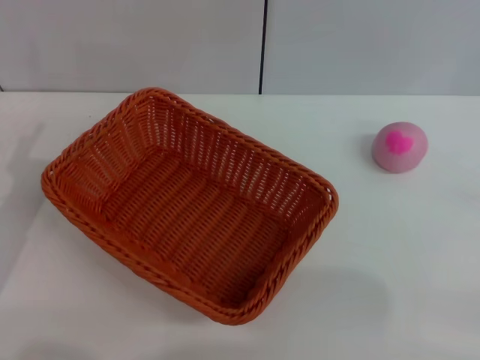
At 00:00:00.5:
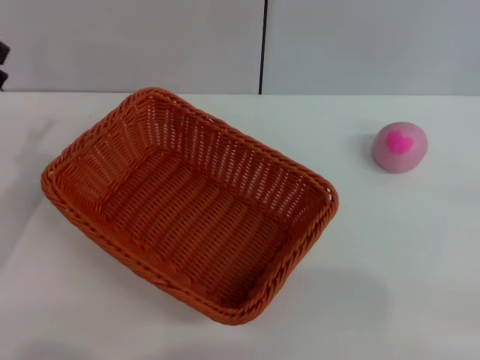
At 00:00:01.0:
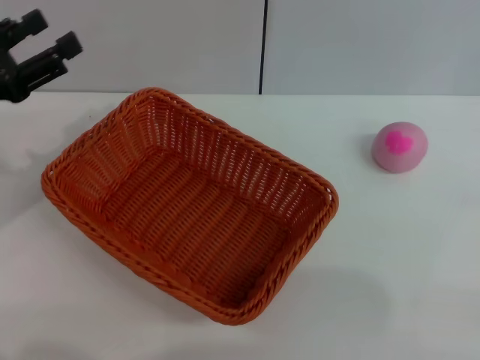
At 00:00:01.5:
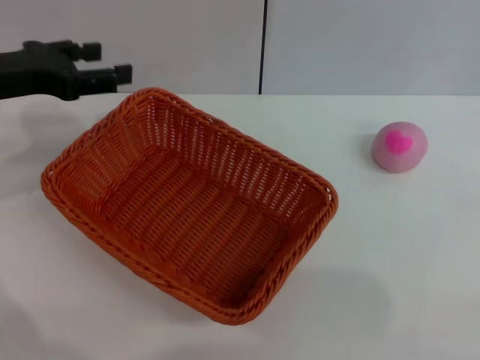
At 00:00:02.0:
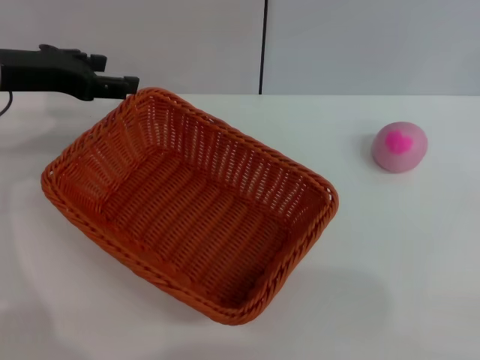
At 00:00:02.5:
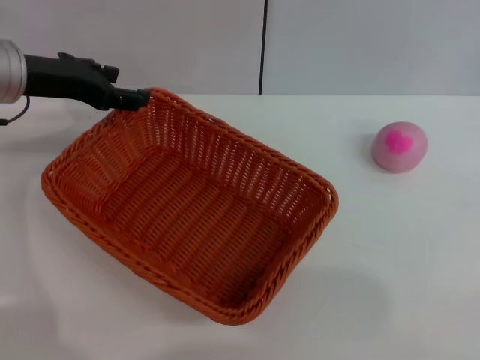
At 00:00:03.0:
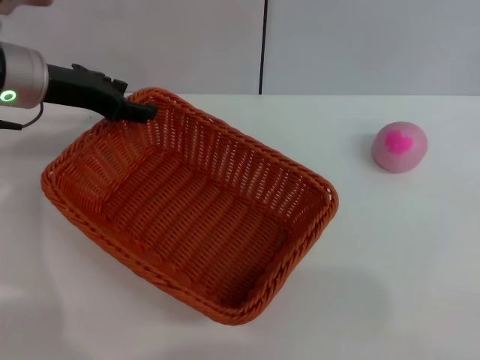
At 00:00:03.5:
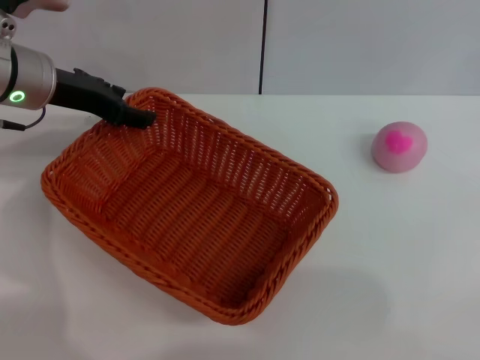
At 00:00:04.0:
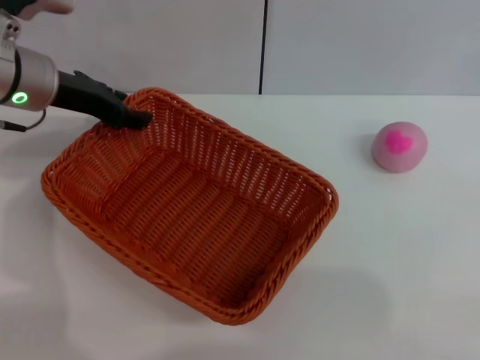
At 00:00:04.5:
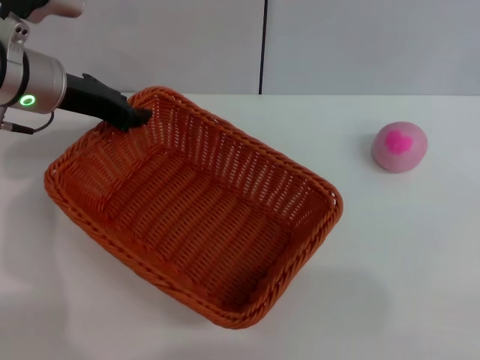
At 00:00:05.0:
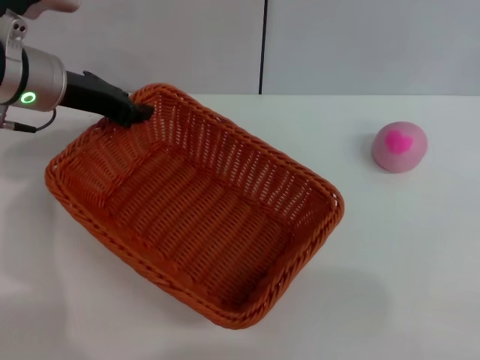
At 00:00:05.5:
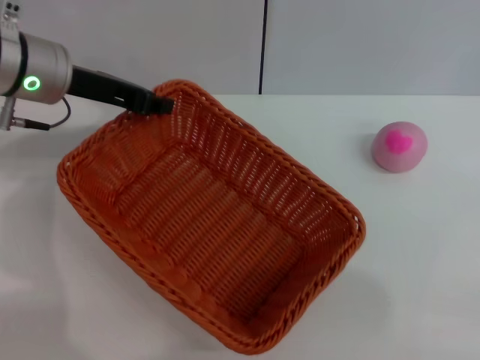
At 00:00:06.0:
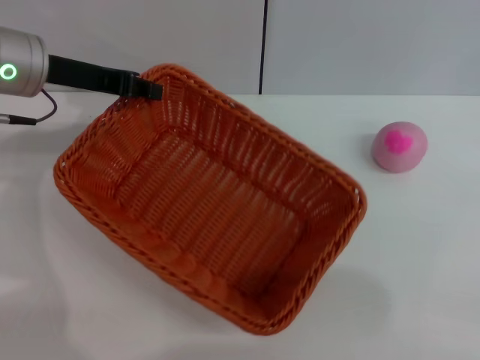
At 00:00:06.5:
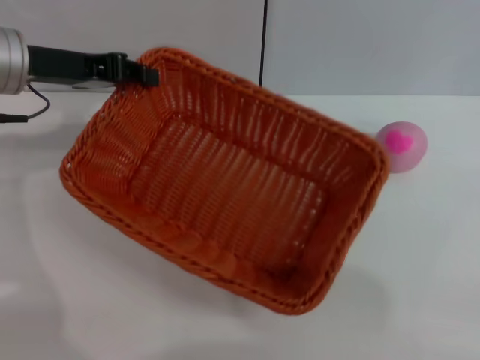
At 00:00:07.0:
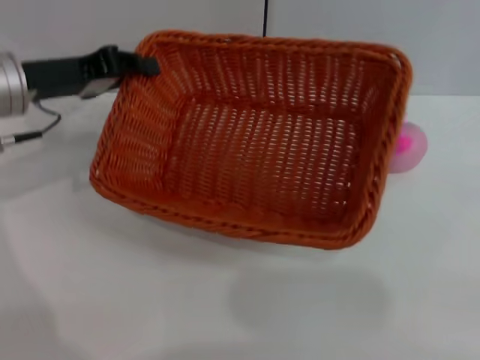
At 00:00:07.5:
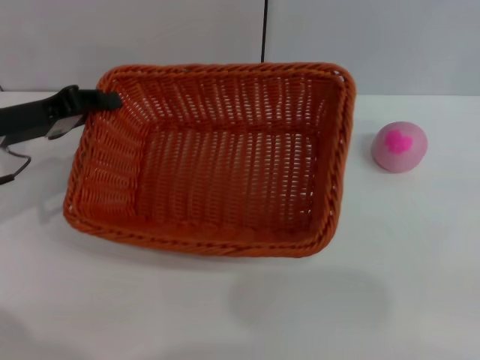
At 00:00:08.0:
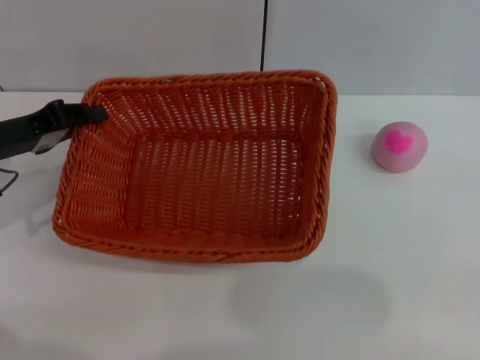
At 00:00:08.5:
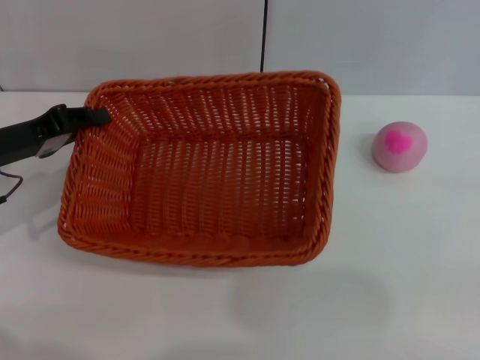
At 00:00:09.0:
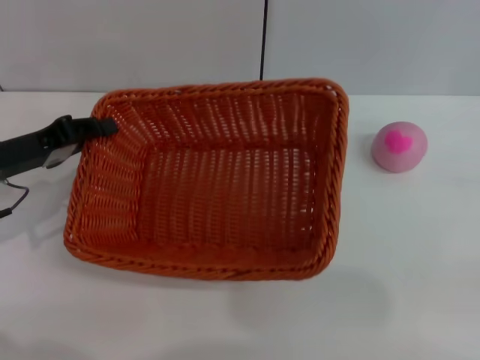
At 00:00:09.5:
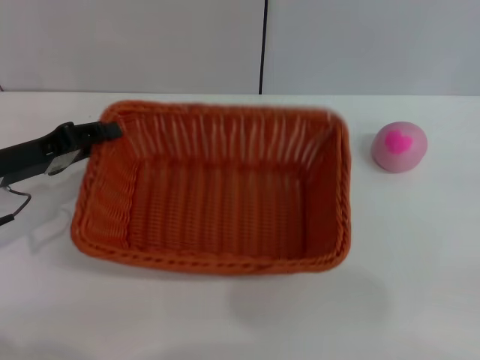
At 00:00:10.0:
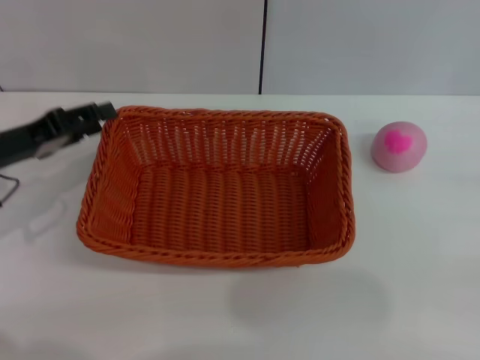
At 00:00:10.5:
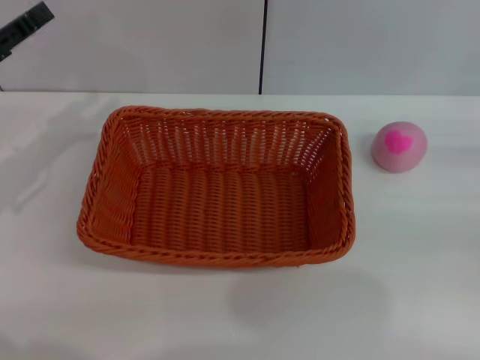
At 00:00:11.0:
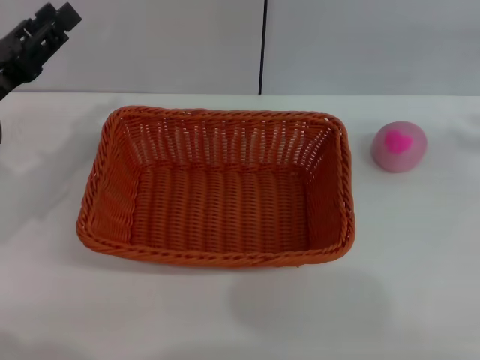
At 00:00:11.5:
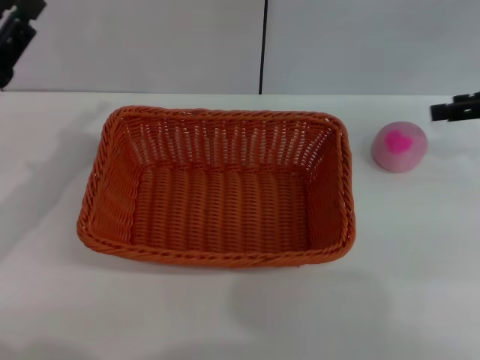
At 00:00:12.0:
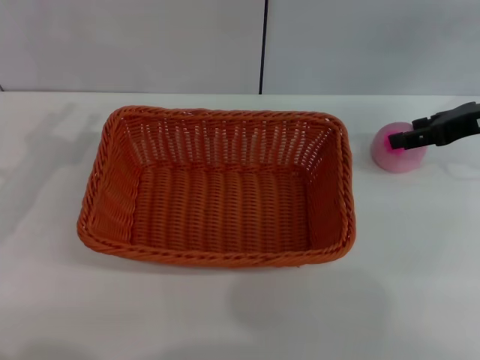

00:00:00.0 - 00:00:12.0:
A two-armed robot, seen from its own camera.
Step, 00:00:00.0 - 00:00:06.0: Pick up the light basket with the left gripper.
Step, 00:00:06.5 - 00:00:10.0: Place the light basket in the center of view with the right gripper.
00:00:00.0 - 00:00:02.0: The left gripper goes about 20 cm forward and upward.
00:00:02.0 - 00:00:04.0: The left gripper moves about 5 cm.
00:00:04.0 - 00:00:06.0: The left gripper closes.
00:00:06.0 - 00:00:08.0: The left gripper heads downward, to the left and backward, covering roughly 10 cm.
00:00:08.0 - 00:00:10.0: The left gripper opens its fingers.
00:00:10.0 - 00:00:12.0: The right gripper moves forward, to the left and upward, approximately 20 cm, while the left gripper shifts by approximately 5 cm.

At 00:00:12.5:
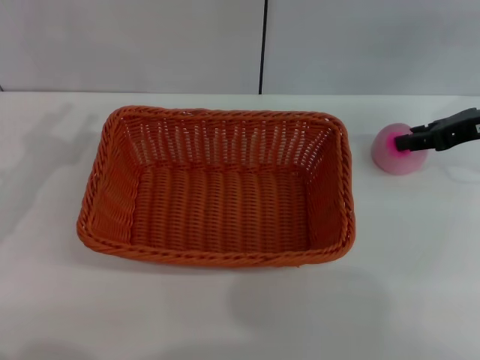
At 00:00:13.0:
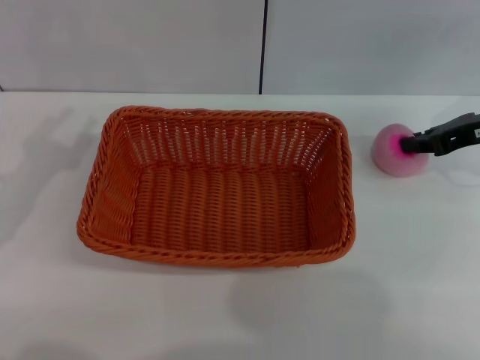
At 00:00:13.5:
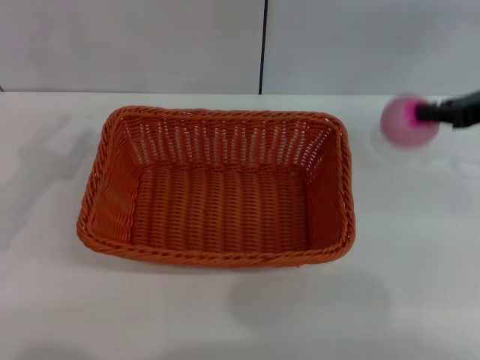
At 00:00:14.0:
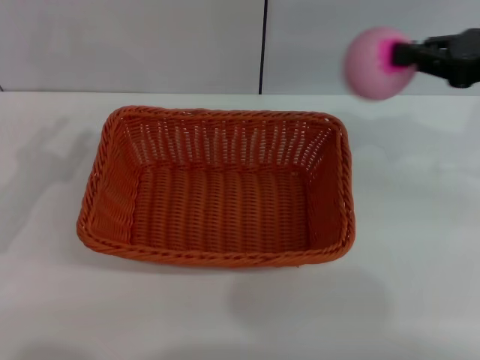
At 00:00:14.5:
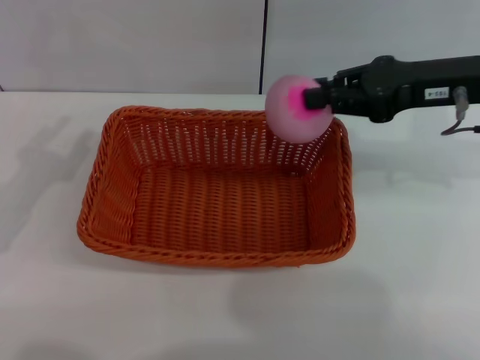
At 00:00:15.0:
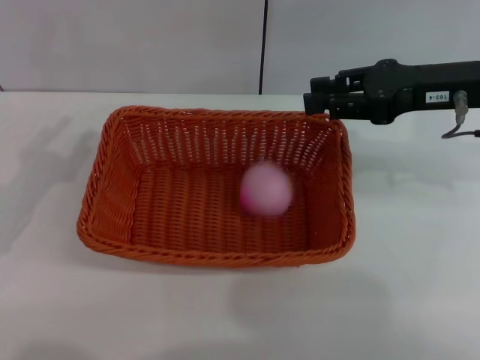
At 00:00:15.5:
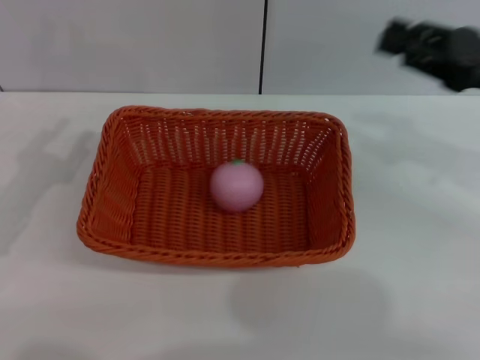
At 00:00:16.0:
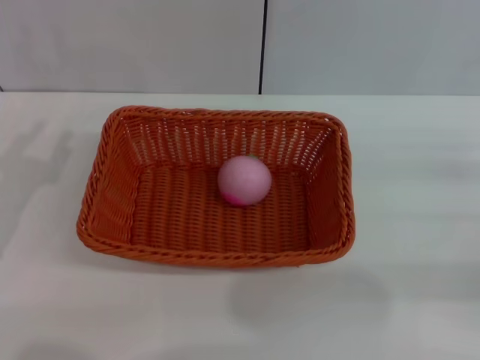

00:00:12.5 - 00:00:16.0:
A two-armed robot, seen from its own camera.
Step, 00:00:14.5 - 00:00:15.0: Place the peach into the basket with the left gripper.
00:00:12.5 - 00:00:14.5: The right gripper goes some 10 cm to the left and upward, and closes up.
00:00:14.5 - 00:00:16.0: The right gripper heads to the right, backward and downward, covering roughly 20 cm, and opens.

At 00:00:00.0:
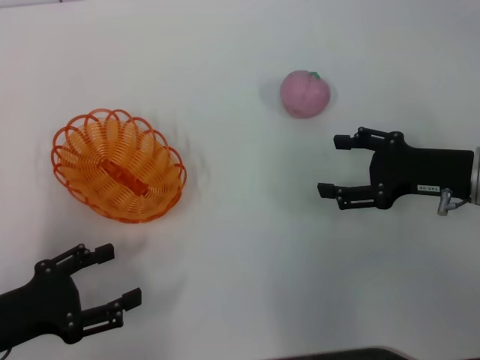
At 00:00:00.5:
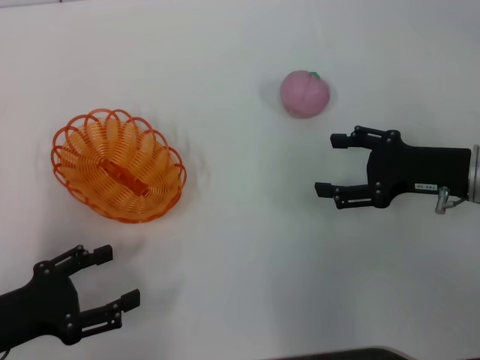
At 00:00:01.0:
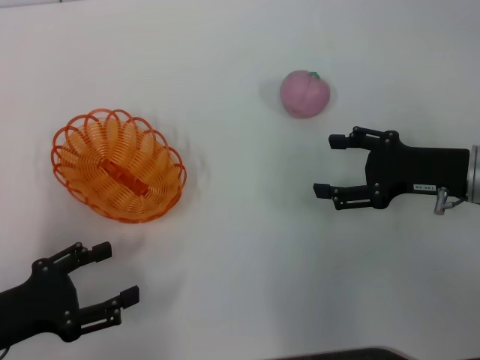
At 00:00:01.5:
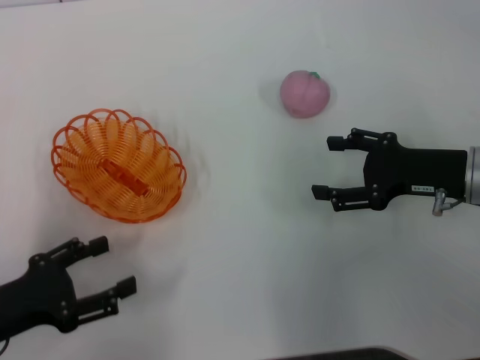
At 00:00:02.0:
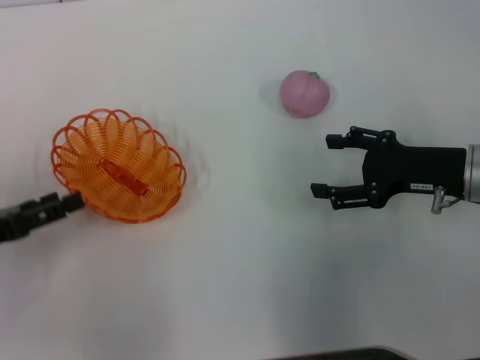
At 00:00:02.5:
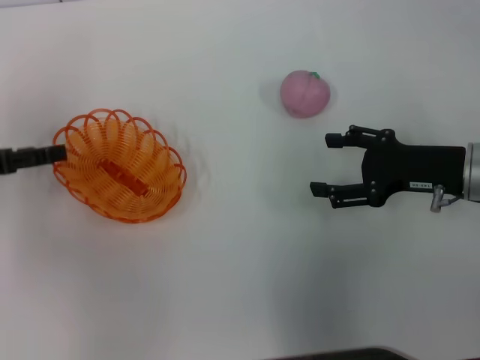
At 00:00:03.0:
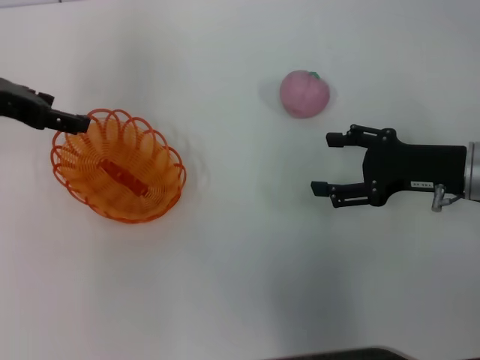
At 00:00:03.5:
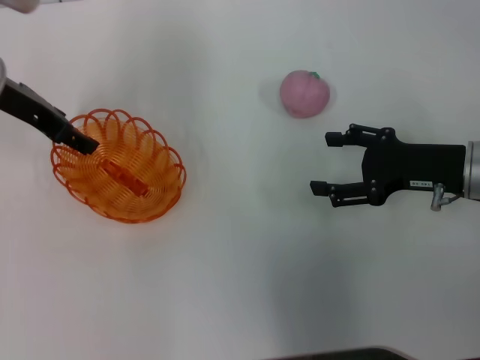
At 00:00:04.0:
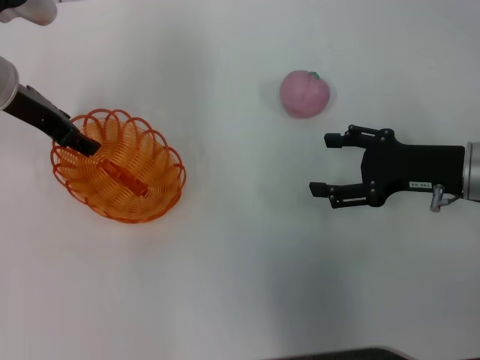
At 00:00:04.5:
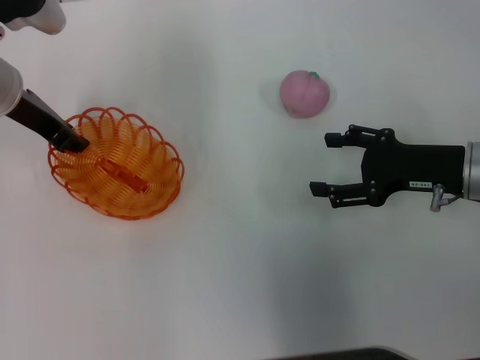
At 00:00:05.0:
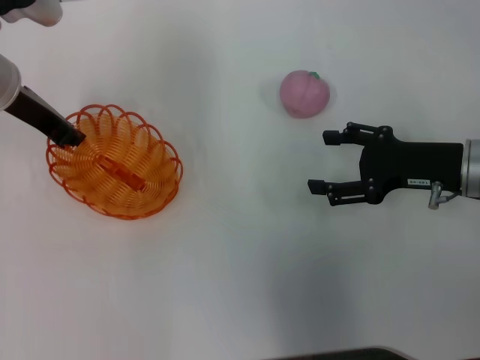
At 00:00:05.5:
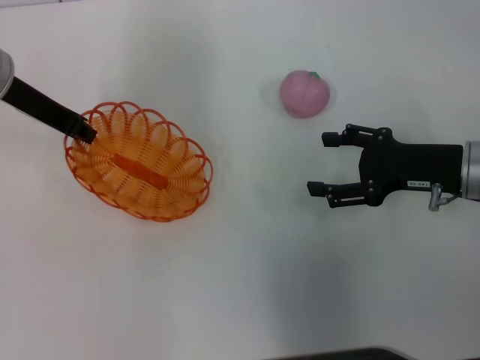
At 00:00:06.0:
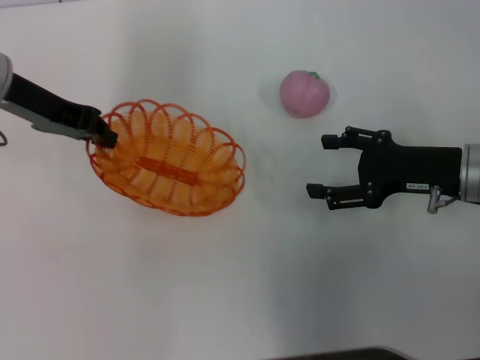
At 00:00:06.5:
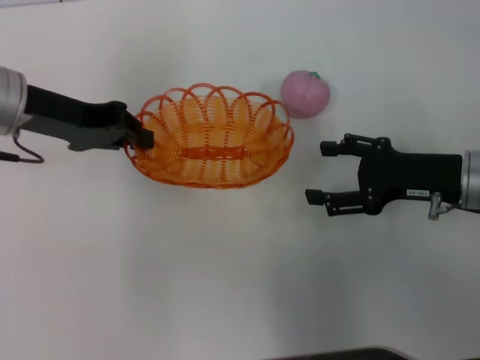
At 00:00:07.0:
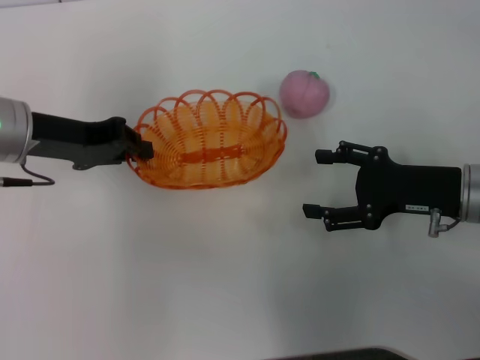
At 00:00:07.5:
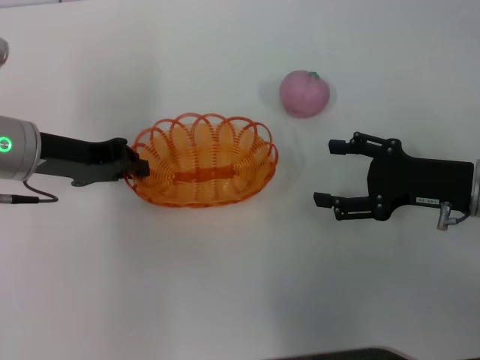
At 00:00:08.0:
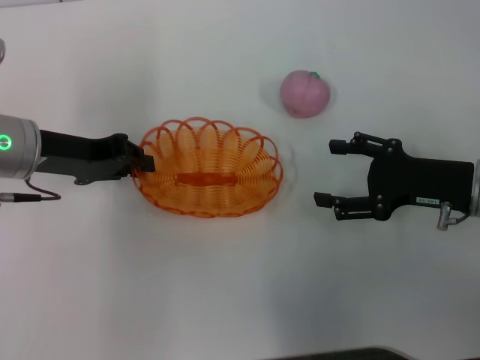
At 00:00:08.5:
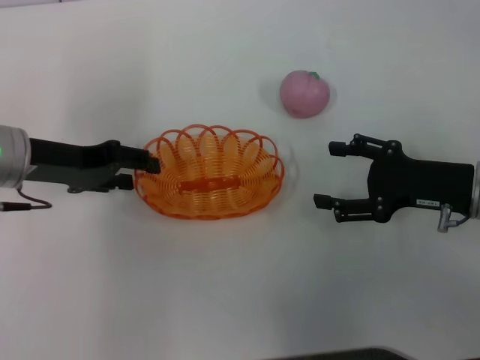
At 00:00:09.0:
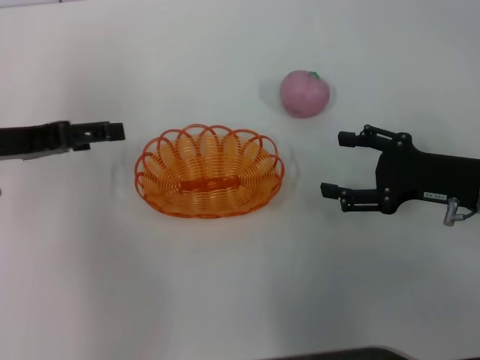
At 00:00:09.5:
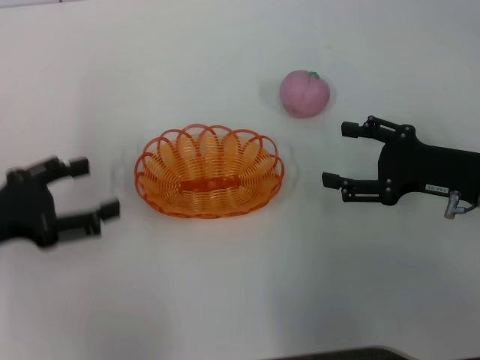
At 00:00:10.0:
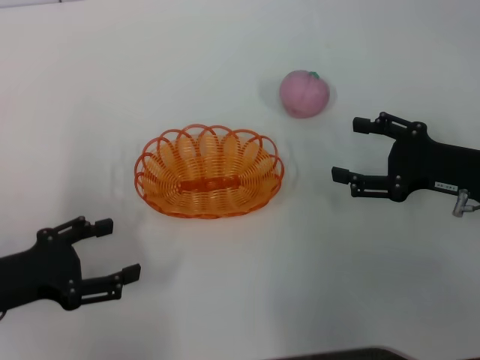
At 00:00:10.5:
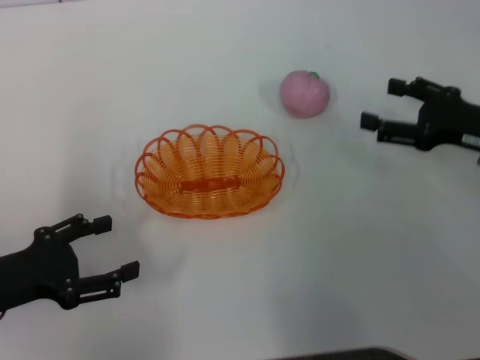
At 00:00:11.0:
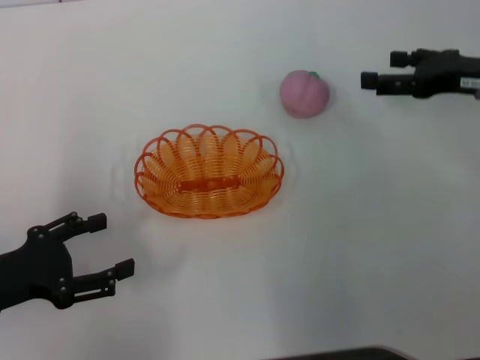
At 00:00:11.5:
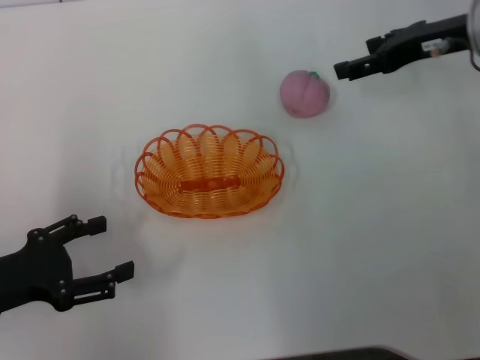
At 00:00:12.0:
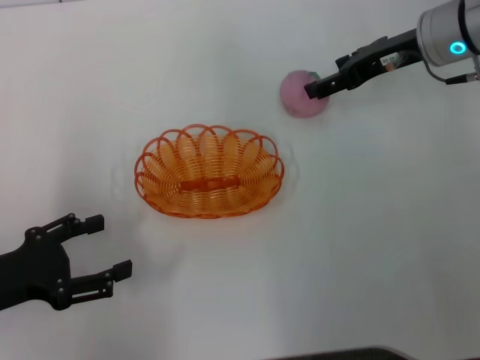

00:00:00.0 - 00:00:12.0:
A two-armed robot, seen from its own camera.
Step, 00:00:00.0 - 00:00:06.0: Pick up the basket with the left gripper.
Step, 00:00:06.5 - 00:00:10.0: Place the basket in the center of view with the left gripper.
00:00:00.0 - 00:00:02.0: The left gripper shifts roughly 5 cm forward.
00:00:02.0 - 00:00:04.0: The left gripper travels forward, to the right and upward by about 20 cm.
00:00:04.0 - 00:00:06.0: The left gripper closes its fingers.
00:00:06.0 - 00:00:08.0: The left gripper is displaced downward by roughly 5 cm.
00:00:08.0 - 00:00:10.0: The left gripper heads backward, to the left and downward, covering some 15 cm, and opens.
00:00:10.0 - 00:00:12.0: The right gripper moves forward and upward, approximately 15 cm.
